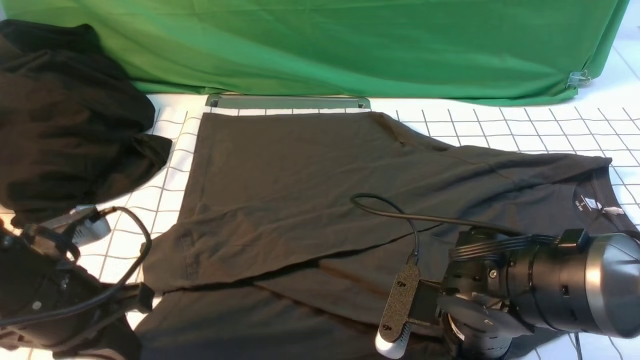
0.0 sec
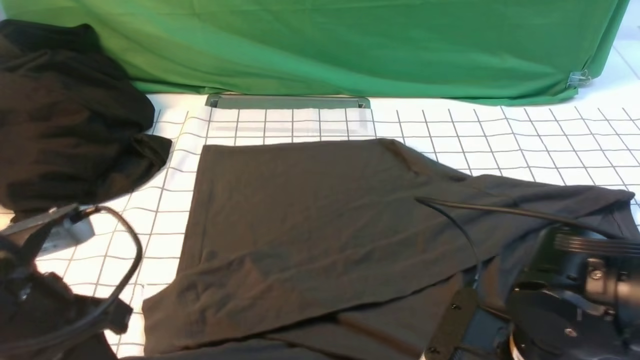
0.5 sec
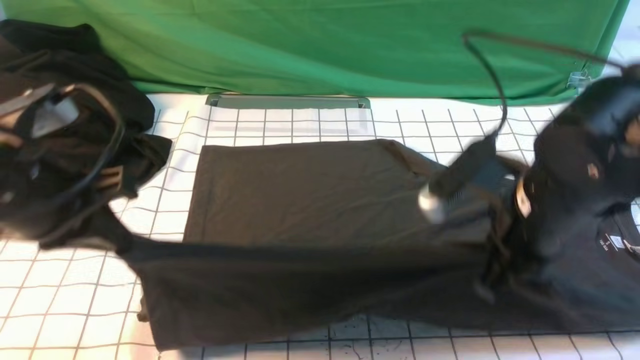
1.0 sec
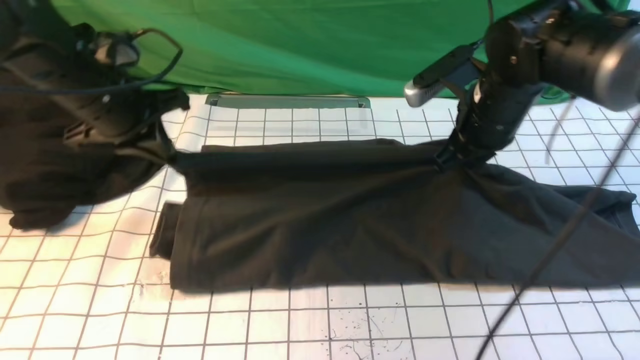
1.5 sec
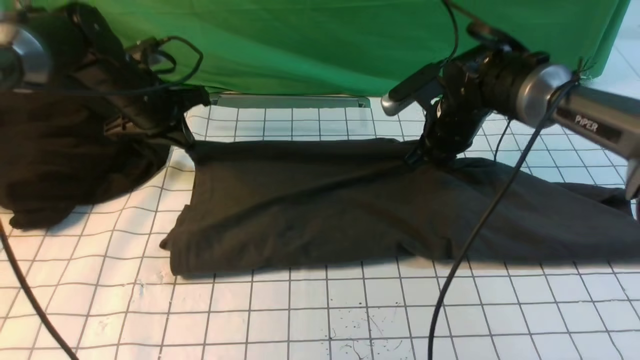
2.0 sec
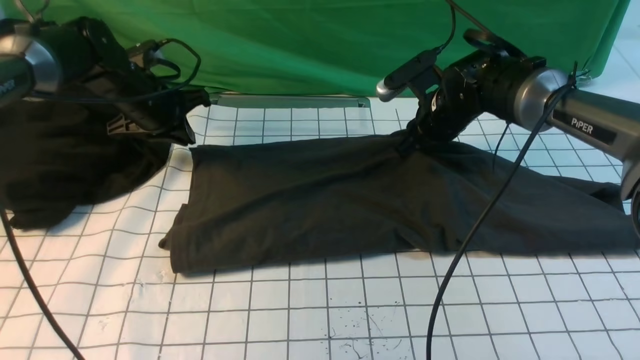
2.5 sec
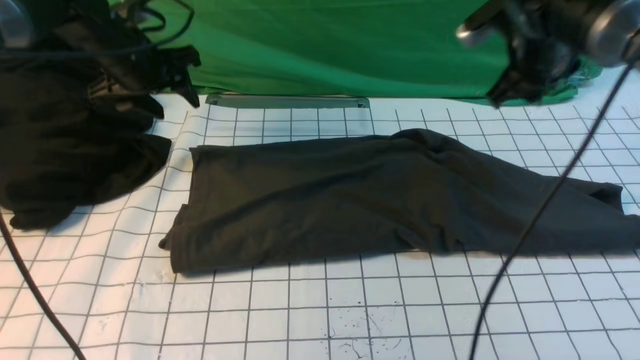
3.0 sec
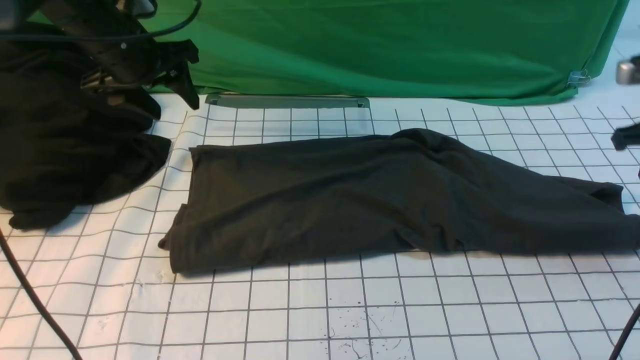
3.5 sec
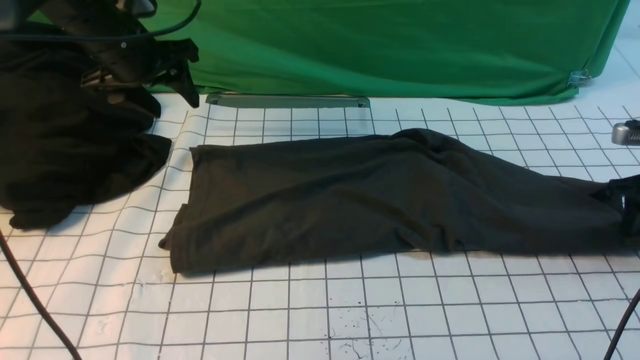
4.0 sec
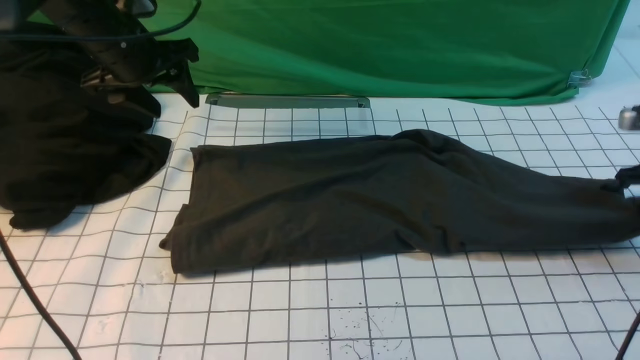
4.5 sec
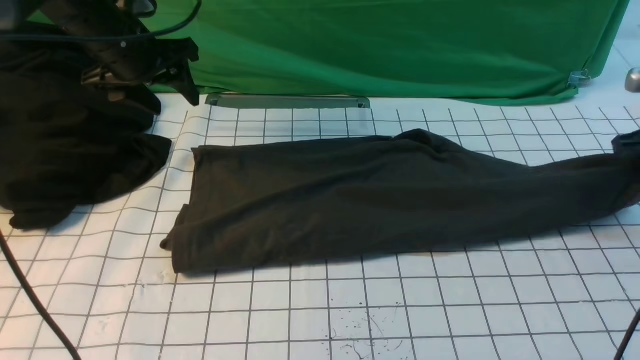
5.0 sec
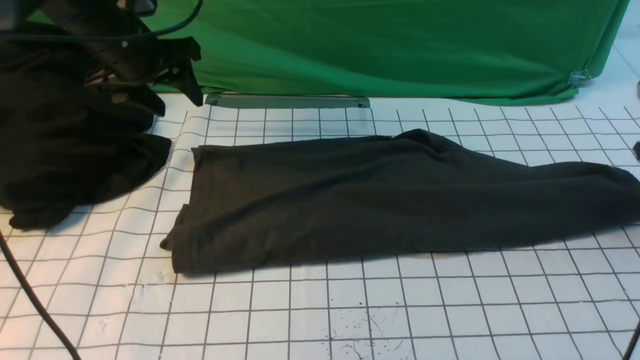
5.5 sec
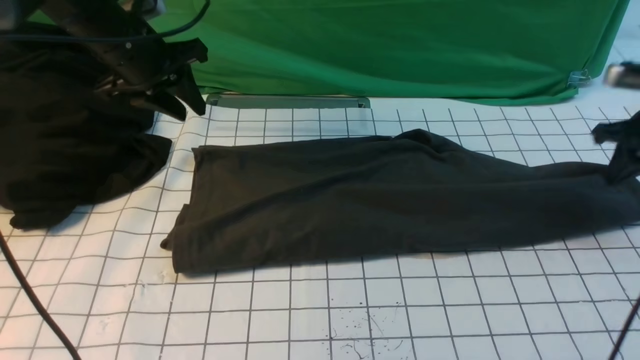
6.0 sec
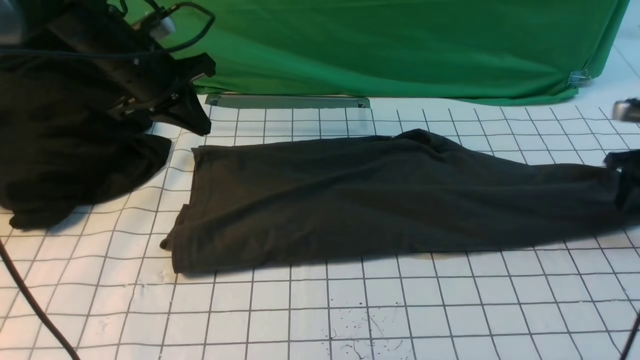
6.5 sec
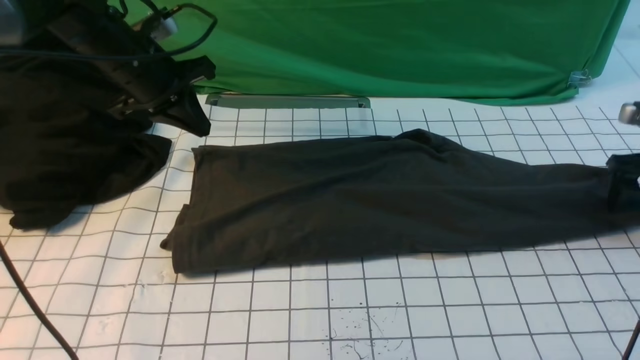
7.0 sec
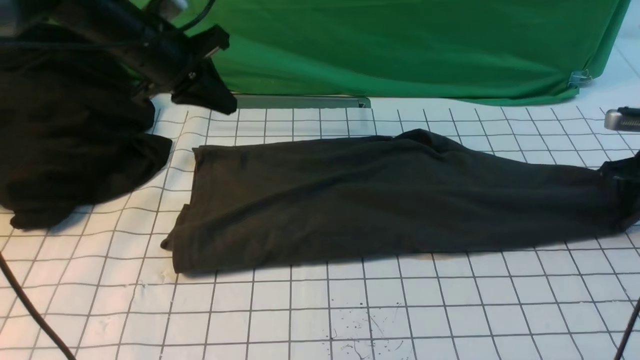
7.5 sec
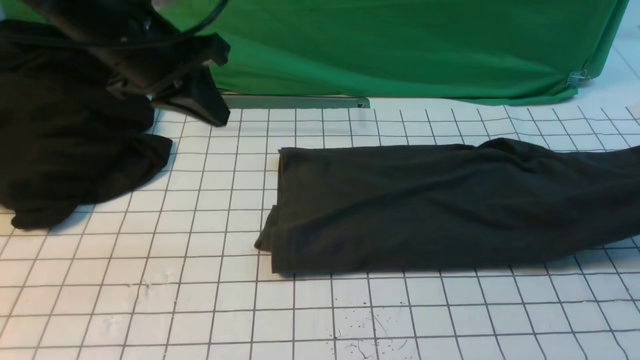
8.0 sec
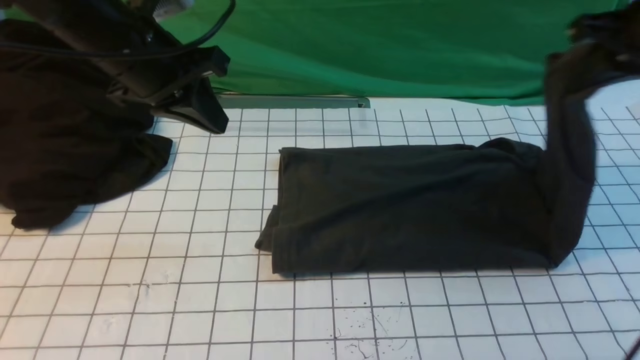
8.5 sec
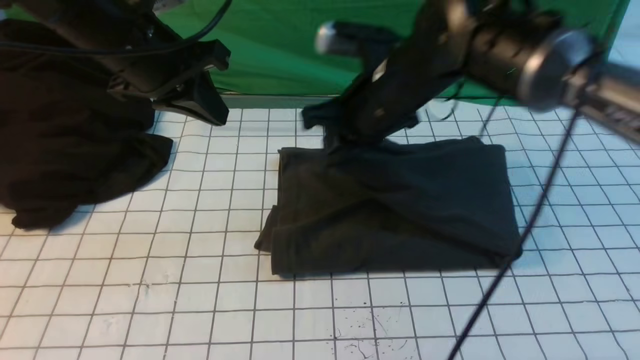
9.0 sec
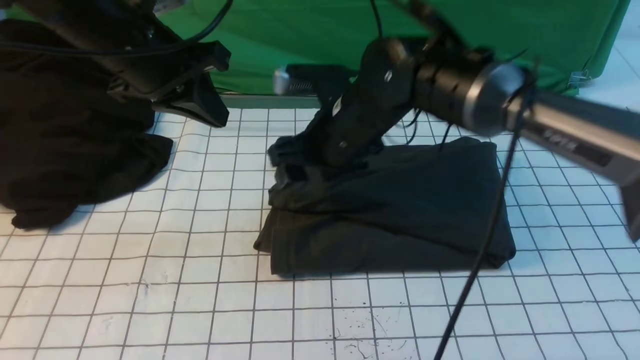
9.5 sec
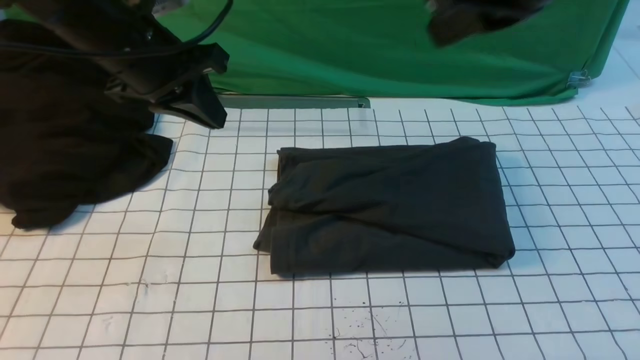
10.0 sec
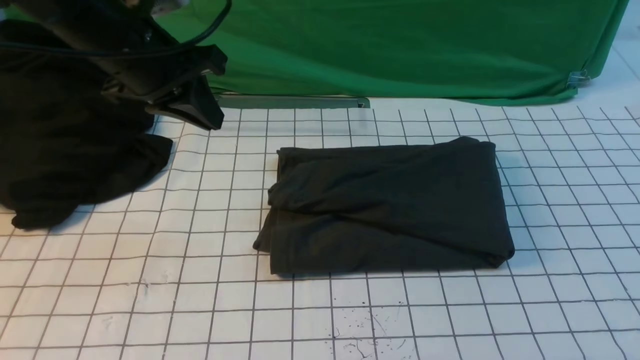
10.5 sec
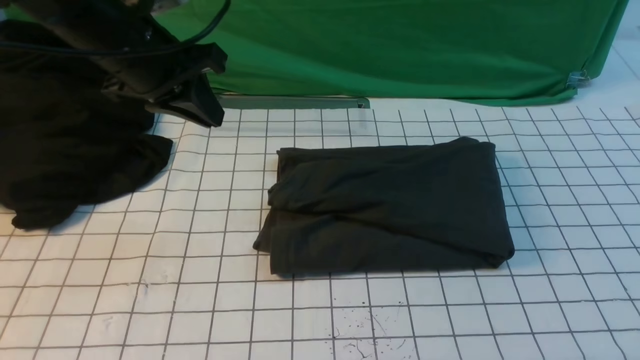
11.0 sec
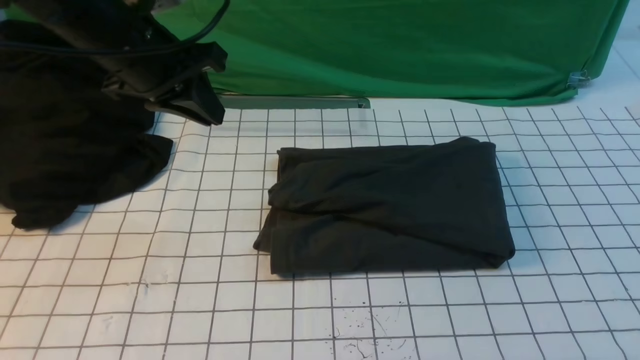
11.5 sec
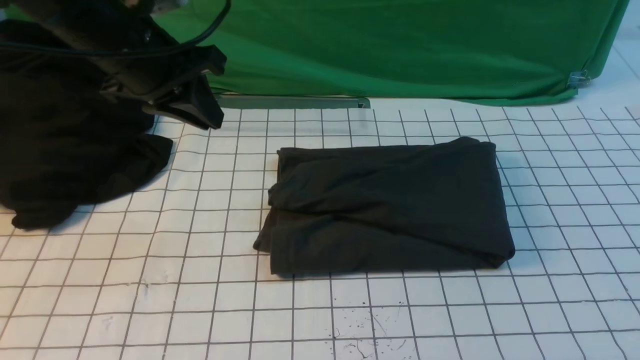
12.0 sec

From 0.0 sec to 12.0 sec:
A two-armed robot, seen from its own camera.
Step, from 0.0 sec to 2.5 sec: use both arms to drag the lower edge of the fabric forward and fold it over the upper edge.
Step, from 3.0 sec to 7.0 sec: use the right arm to clamp the right edge of the fabric.
Step, from 8.0 sec to 9.0 sec: use the right arm to drag the right edge of the fabric to the left and folds it over the left edge.
From 0.0 sec to 2.0 sec: The grippers both shift forward by approximately 25 cm.
From 2.0 sec to 4.0 sec: The left gripper travels upward by roughly 10 cm, and opens up. Meanwhile the right gripper is displaced to the right by some 25 cm, and opens its fingers.
From 4.0 sec to 6.0 sec: The right gripper closes; the left gripper closes up.
From 6.0 sec to 8.0 sec: The right gripper moves upward and to the right, about 15 cm, and opens, then closes once more; the left gripper travels backward and upward by approximately 10 cm, and closes its fingers.
From 8.0 sec to 10.0 sec: The right gripper travels to the left and upward by about 35 cm, and opens and closes again.
From 10.0 sec to 12.0 sec: The right gripper moves backward, to the right and downward, some 25 cm.

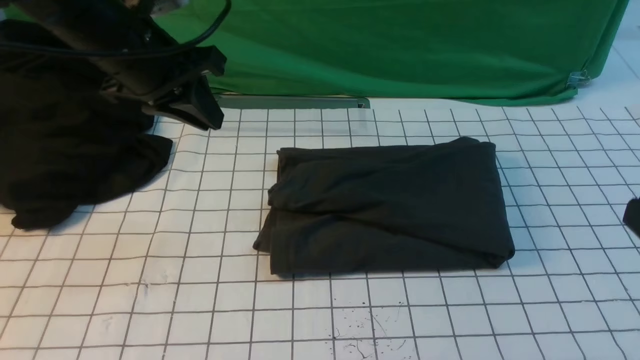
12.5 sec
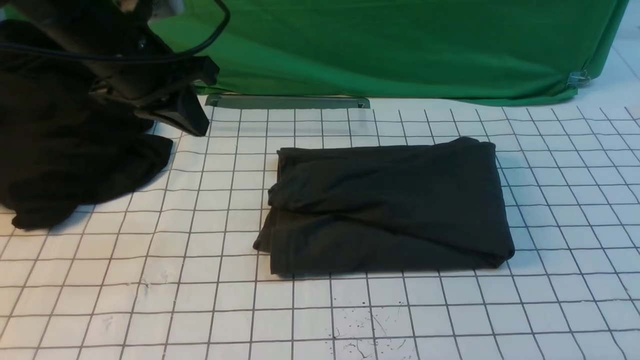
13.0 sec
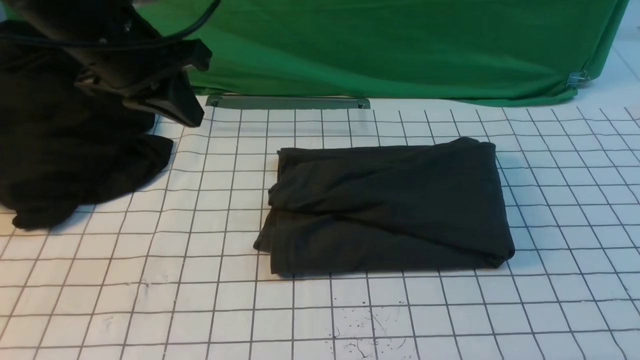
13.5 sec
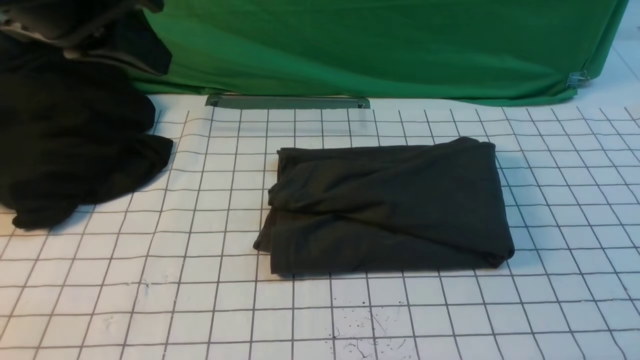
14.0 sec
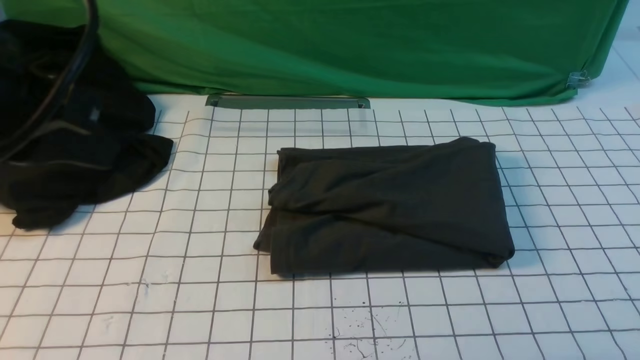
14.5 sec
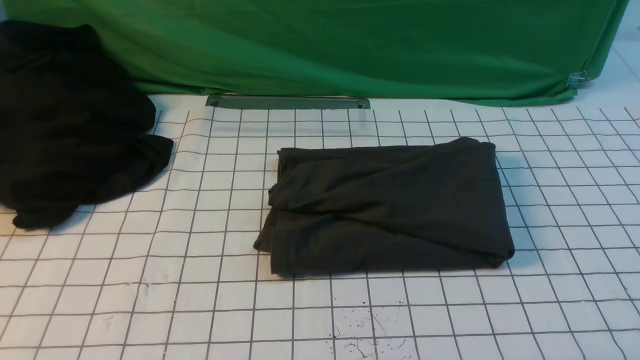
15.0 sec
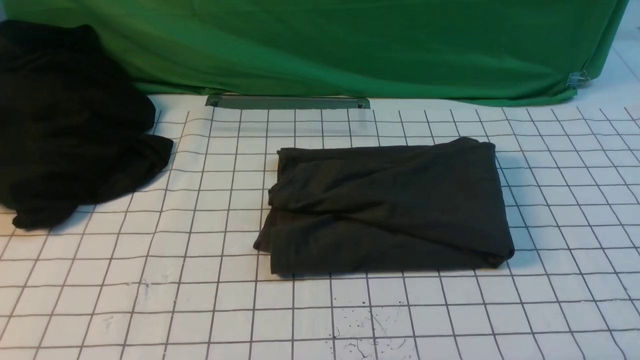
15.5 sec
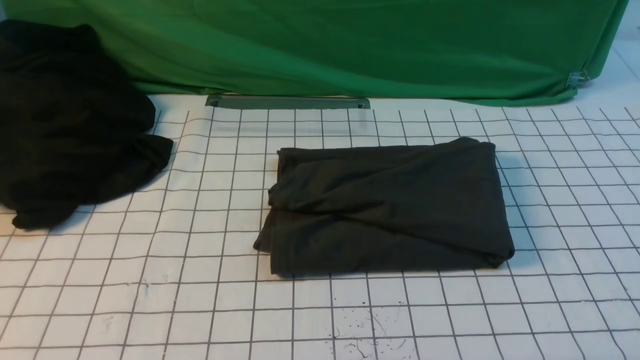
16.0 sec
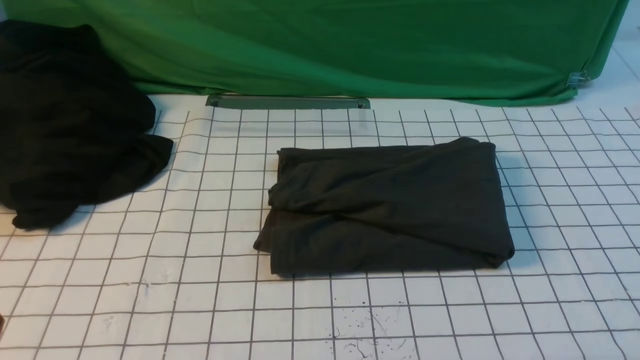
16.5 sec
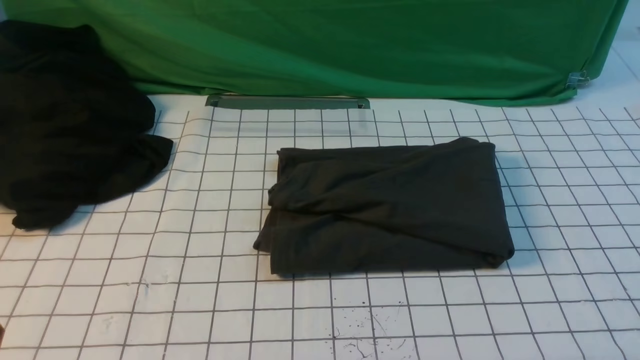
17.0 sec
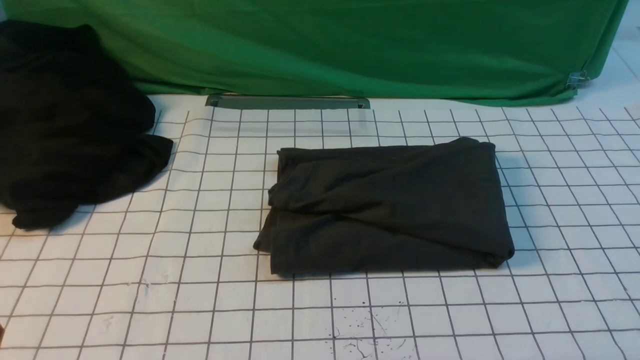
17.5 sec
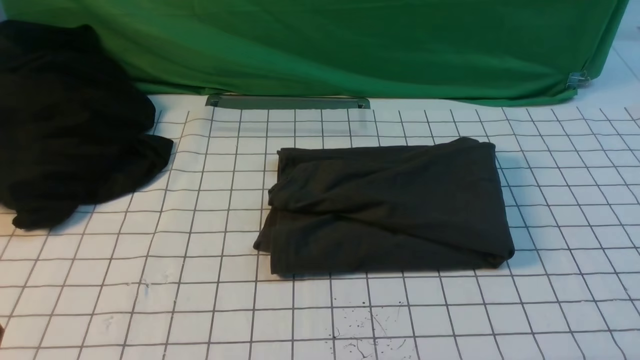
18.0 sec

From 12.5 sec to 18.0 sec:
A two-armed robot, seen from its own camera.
From 12.5 sec to 14.5 sec: The left gripper goes approximately 20 cm backward and upward.

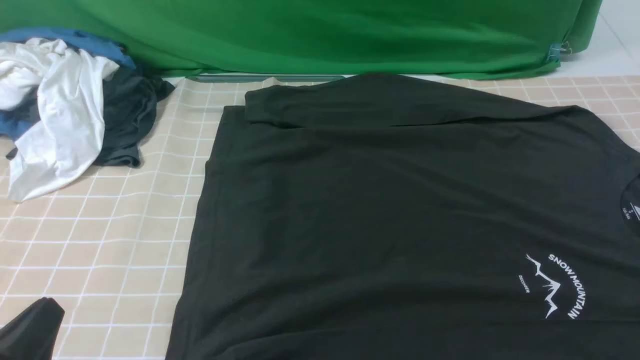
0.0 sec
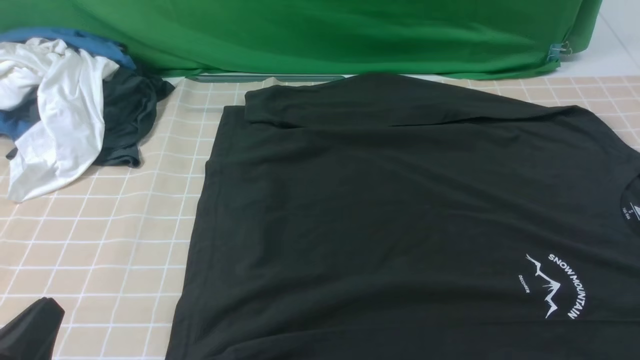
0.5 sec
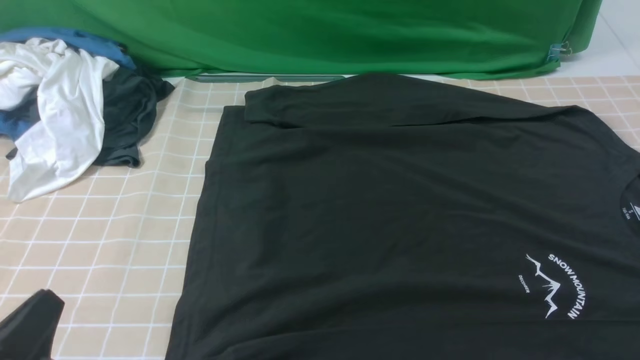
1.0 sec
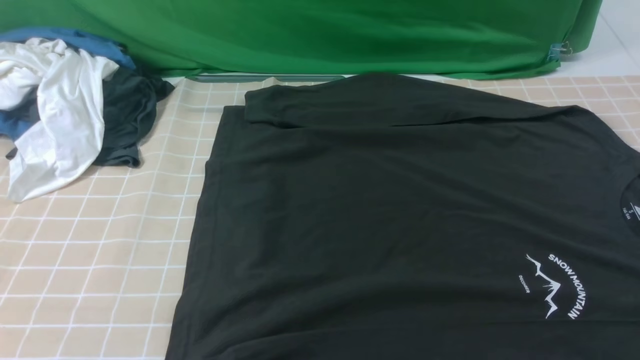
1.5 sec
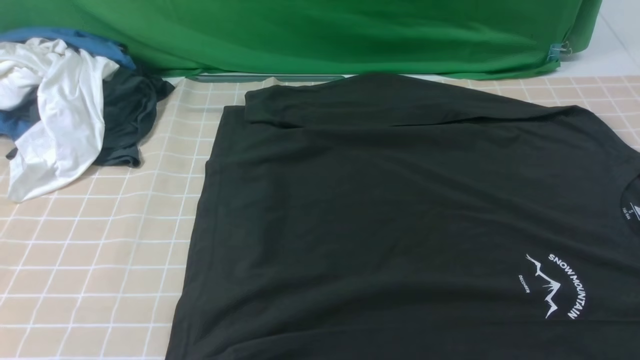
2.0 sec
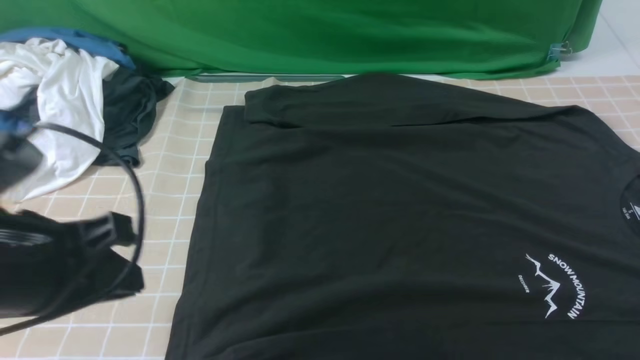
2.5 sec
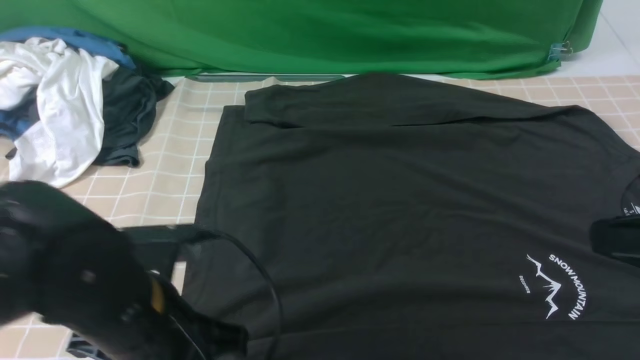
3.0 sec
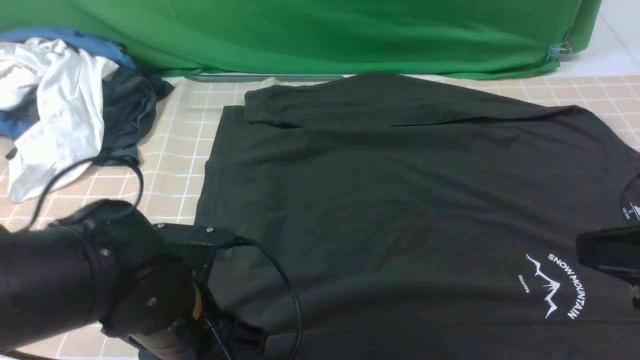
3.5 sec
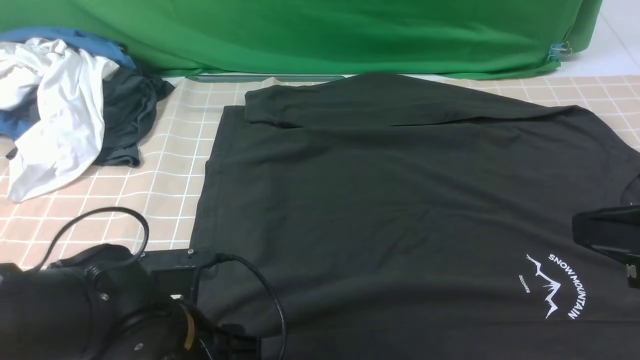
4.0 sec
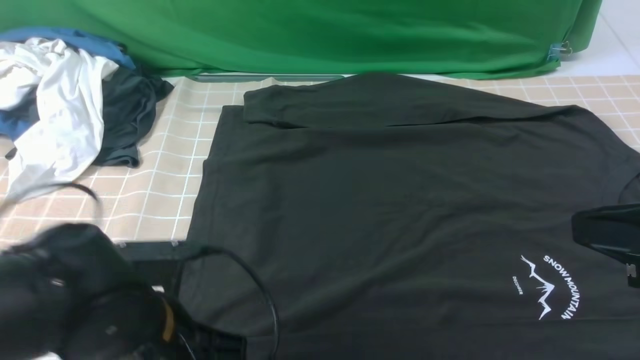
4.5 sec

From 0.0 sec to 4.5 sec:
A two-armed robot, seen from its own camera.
Step, from 0.0 sec to 4.0 sec: use the left arm to clamp the cuff closest to it.
From 0.0 sec to 2.0 sec: The left gripper shifts roughly 15 cm upward.
From 2.0 sec to 4.5 sec: The right gripper shifts approximately 15 cm upward, forward and to the left, while the left gripper goes some 20 cm downward, forward and to the right, and opens and closes again.
